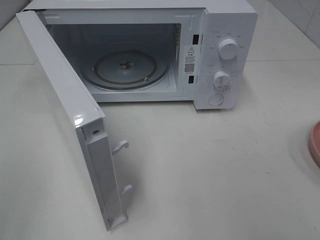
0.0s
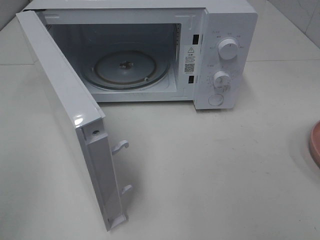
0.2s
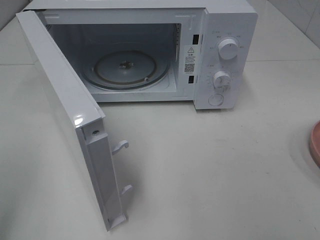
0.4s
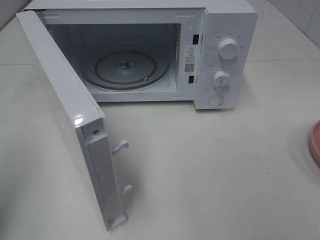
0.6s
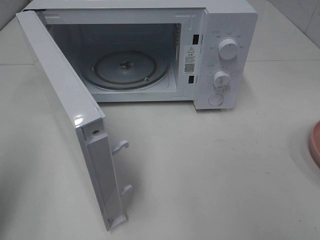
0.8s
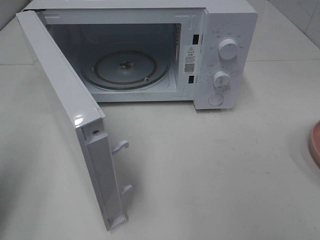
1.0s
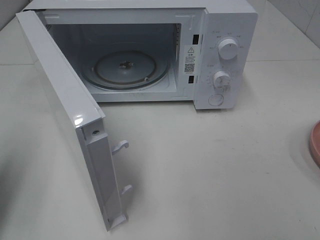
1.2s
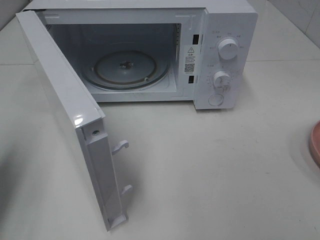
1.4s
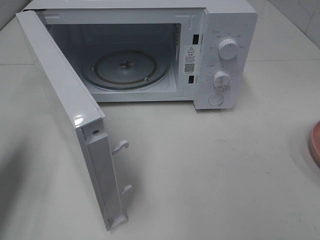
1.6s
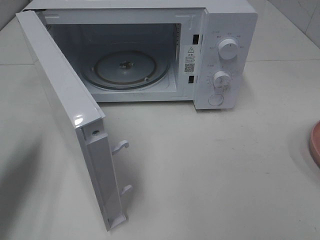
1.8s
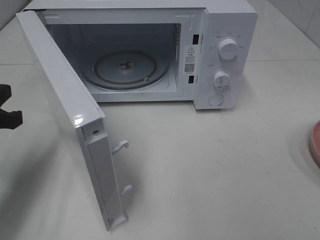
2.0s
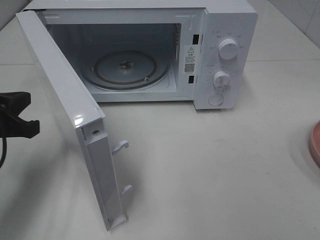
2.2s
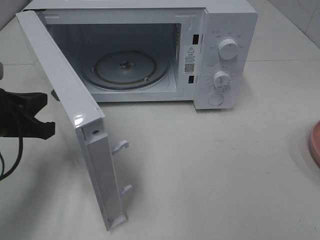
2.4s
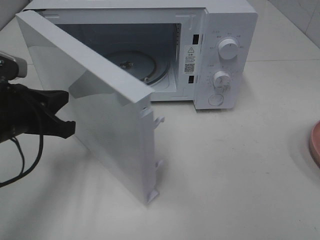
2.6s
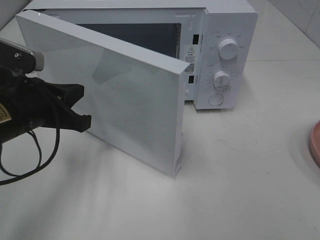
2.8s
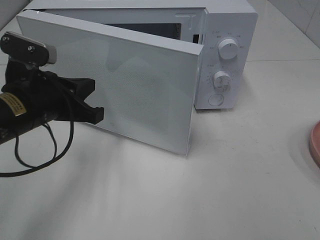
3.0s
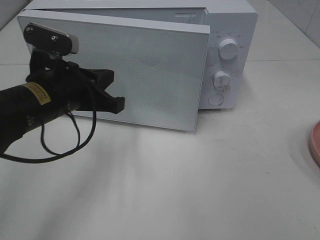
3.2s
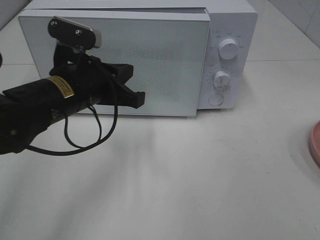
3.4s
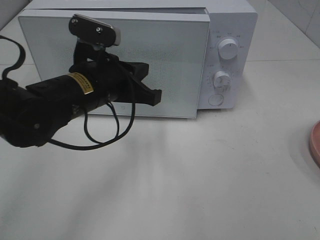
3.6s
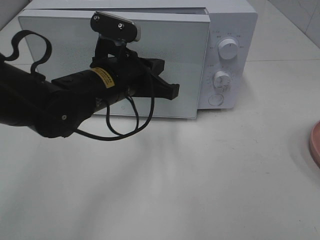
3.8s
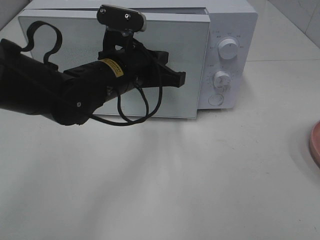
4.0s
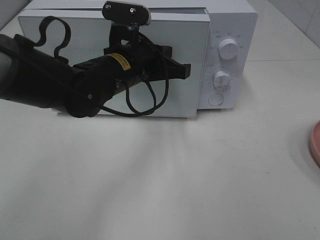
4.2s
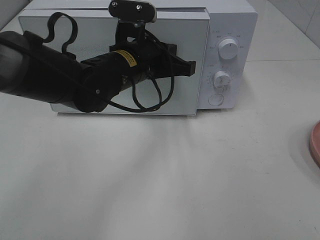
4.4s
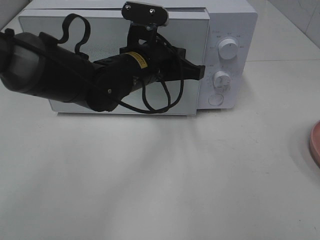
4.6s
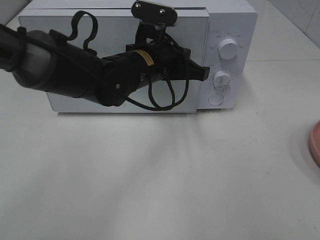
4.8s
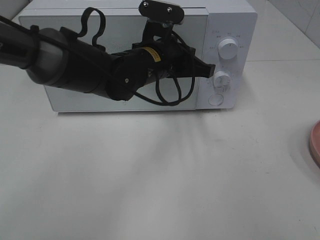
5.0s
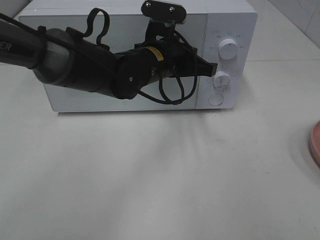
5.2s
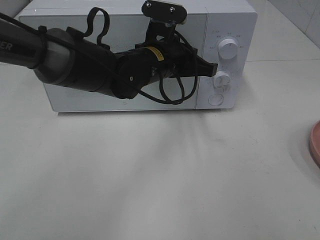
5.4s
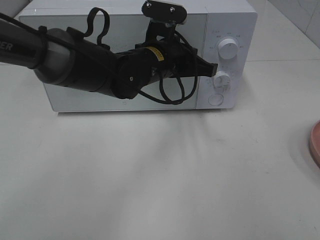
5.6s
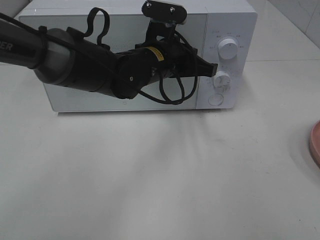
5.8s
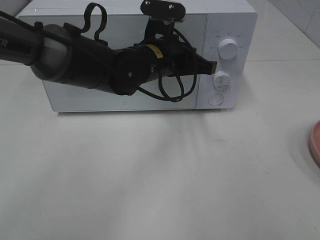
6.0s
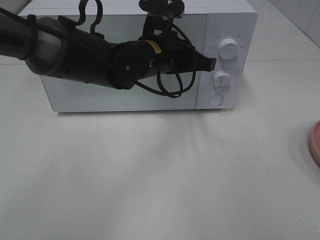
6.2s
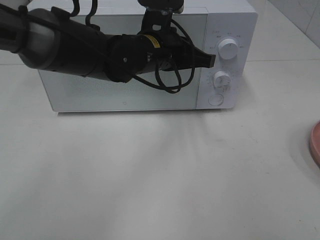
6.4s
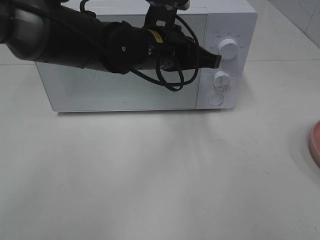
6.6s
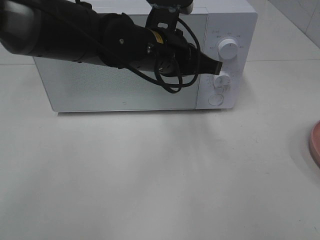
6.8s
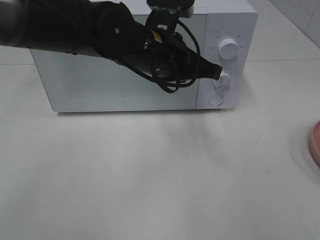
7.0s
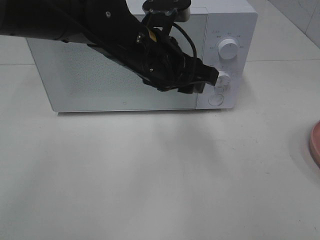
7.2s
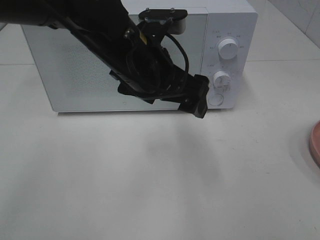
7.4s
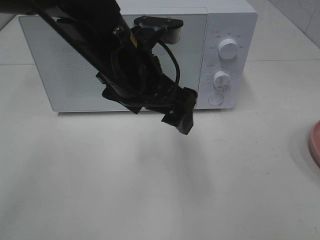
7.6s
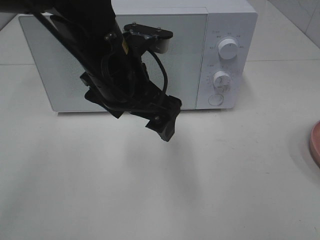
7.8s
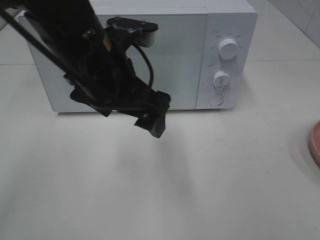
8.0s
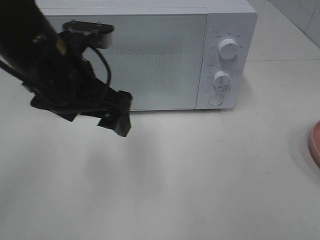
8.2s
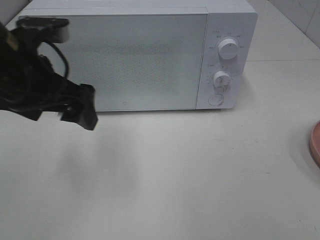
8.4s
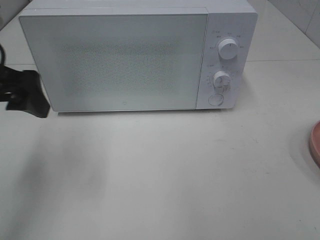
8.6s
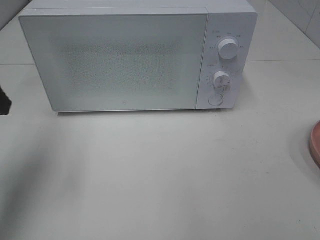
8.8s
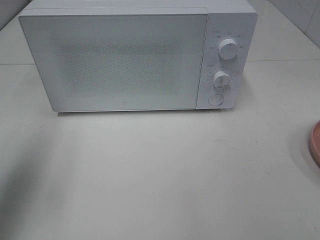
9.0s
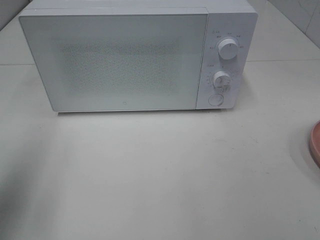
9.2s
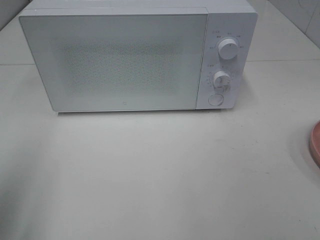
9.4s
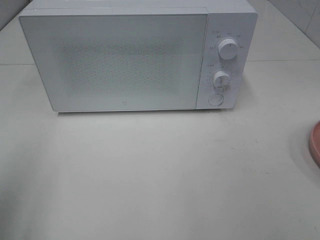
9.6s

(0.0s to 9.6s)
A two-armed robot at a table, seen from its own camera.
Task of the whole recording: Heat Sandwich.
Step, 0.0s - 6.4s: Left hand: close the microwave door.
0.0s - 1.6s: The left gripper moves forward, about 20 cm, and closes.
1.6s - 3.2s: The left gripper moves to the right, approximately 15 cm.
3.2s - 4.8s: The left gripper travels to the right and forward by approximately 15 cm.
4.8s - 6.4s: The grippers stay close to where they were, moving slightly.
6.4s - 8.0s: The left gripper travels backward and to the left by about 10 cm, and opens its fingers.
8.0s - 9.6s: The left gripper shifts roughly 30 cm to the left and backward.

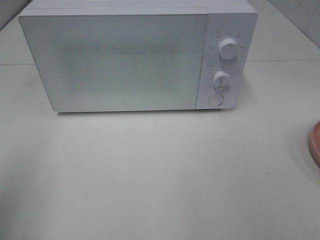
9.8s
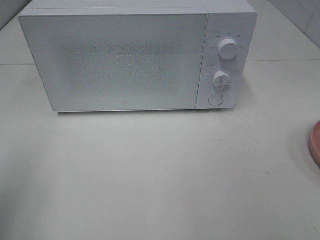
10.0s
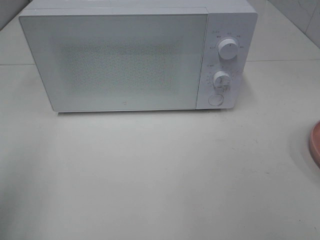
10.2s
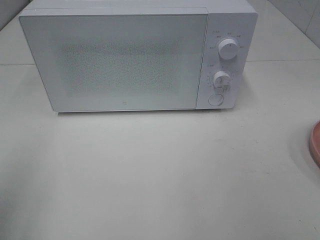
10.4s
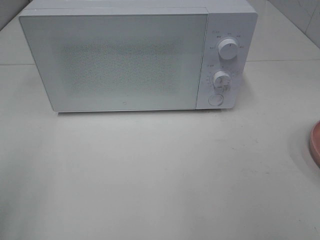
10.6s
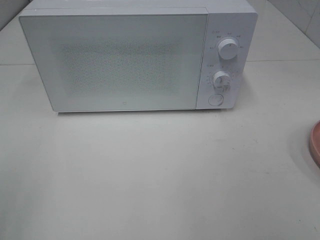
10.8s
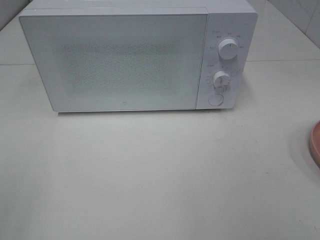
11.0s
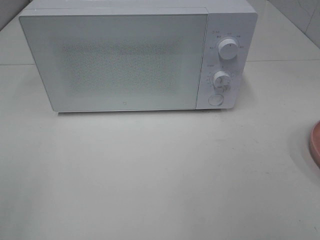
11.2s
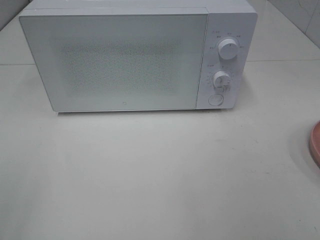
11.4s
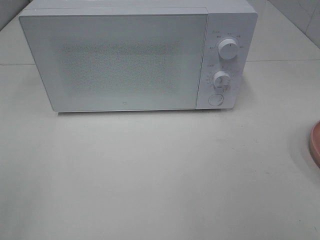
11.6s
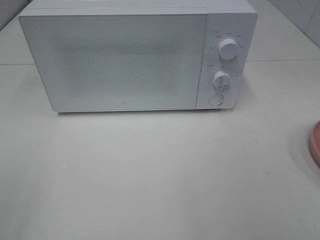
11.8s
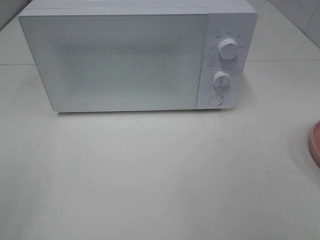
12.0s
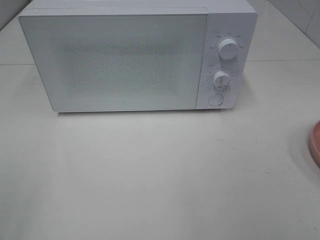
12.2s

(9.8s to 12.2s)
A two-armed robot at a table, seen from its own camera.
Task of the whole recording: Heat Sandwich.
11.0s - 12.2s: Both grippers stay about where they are.

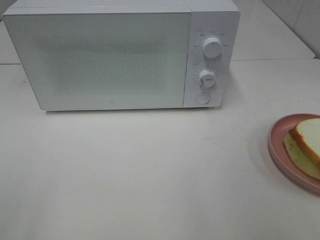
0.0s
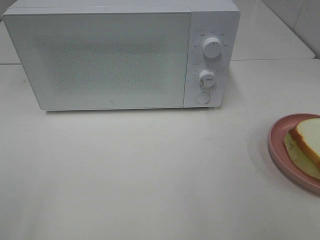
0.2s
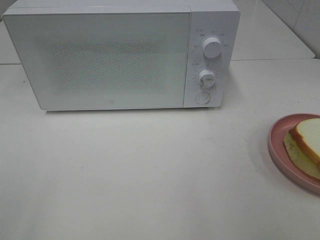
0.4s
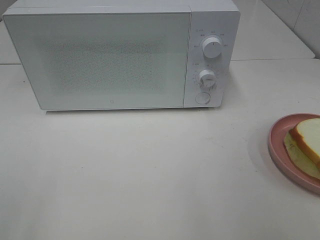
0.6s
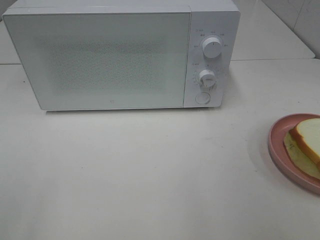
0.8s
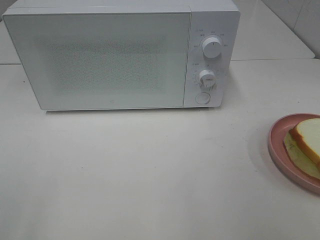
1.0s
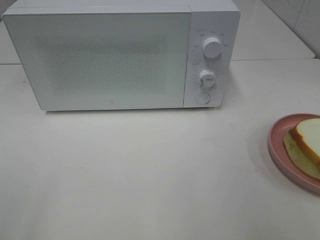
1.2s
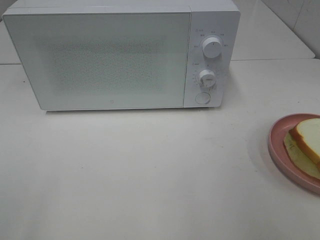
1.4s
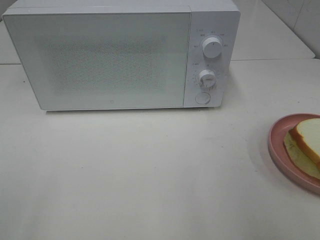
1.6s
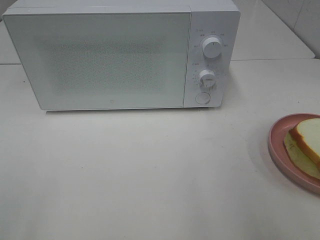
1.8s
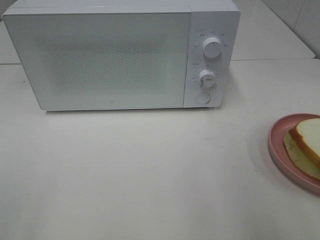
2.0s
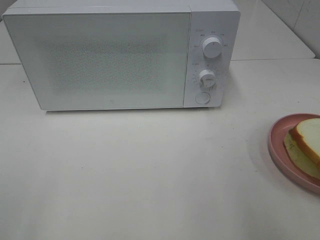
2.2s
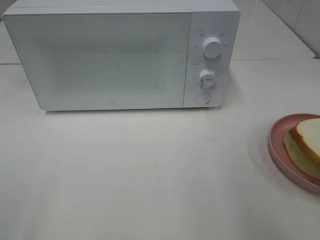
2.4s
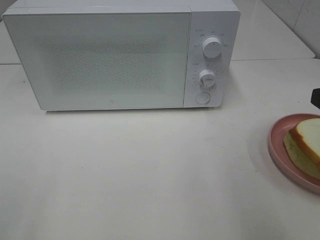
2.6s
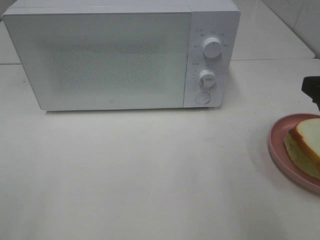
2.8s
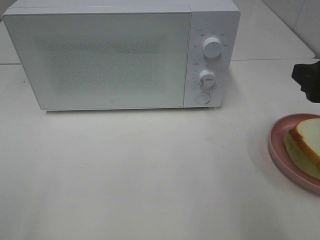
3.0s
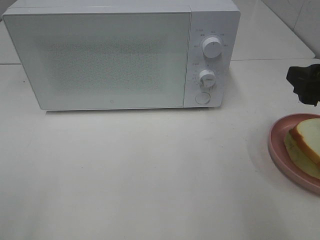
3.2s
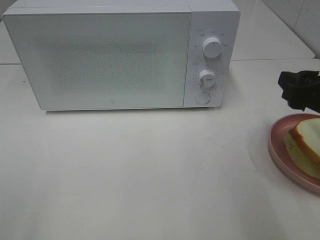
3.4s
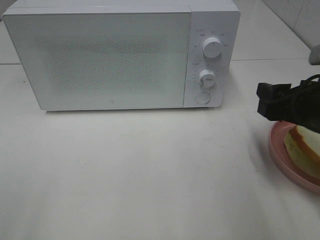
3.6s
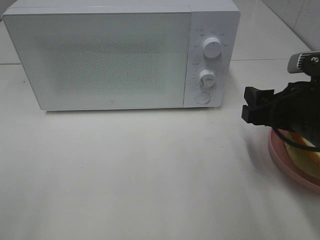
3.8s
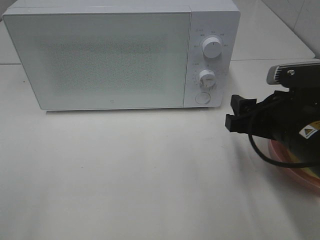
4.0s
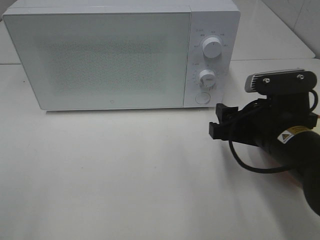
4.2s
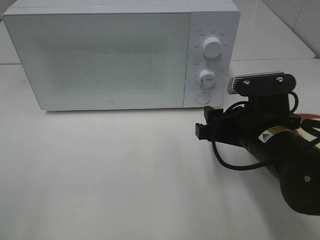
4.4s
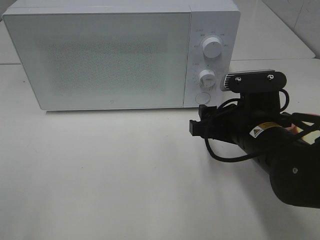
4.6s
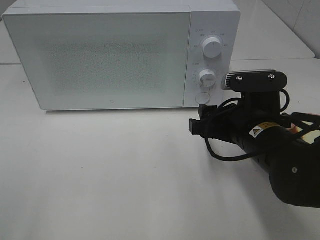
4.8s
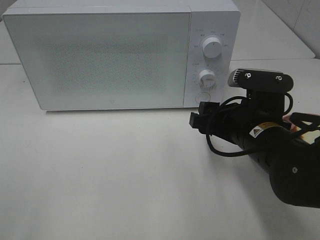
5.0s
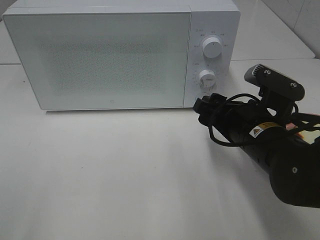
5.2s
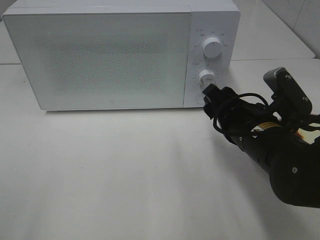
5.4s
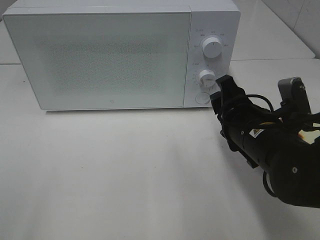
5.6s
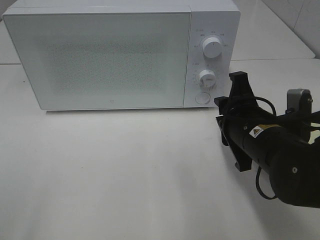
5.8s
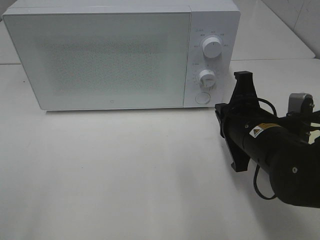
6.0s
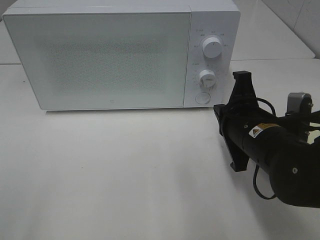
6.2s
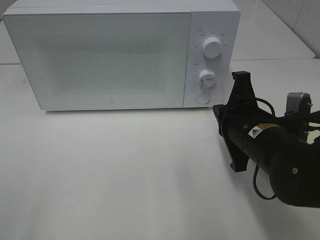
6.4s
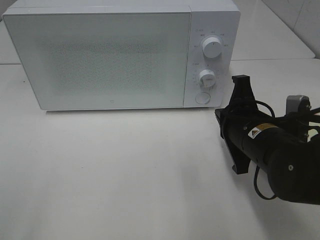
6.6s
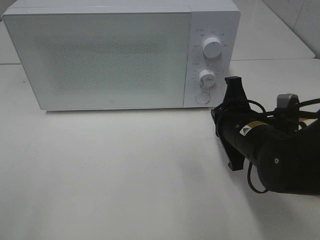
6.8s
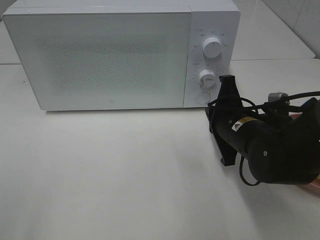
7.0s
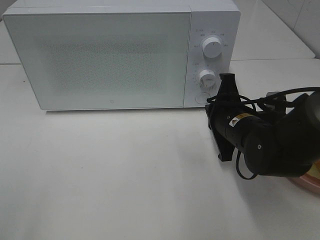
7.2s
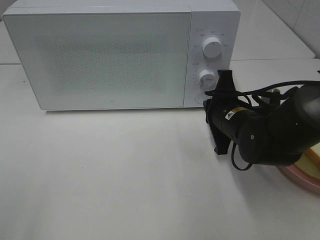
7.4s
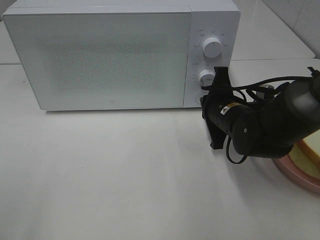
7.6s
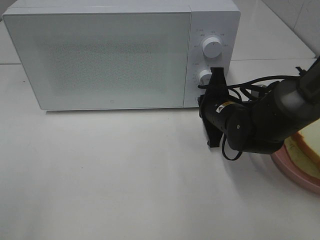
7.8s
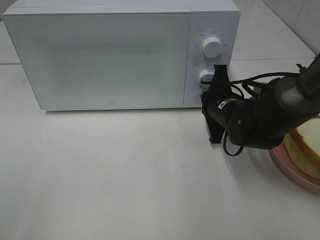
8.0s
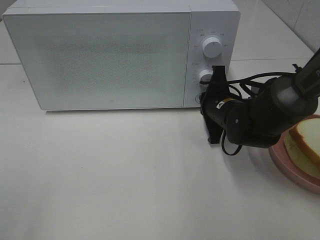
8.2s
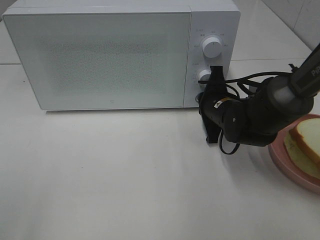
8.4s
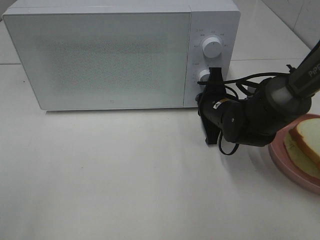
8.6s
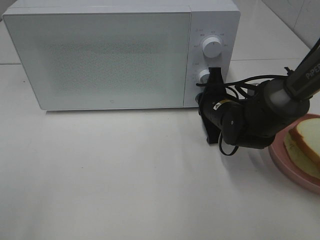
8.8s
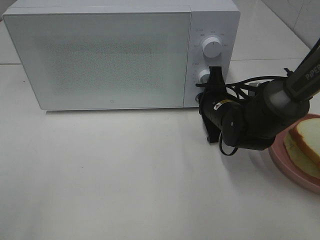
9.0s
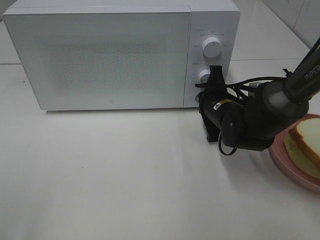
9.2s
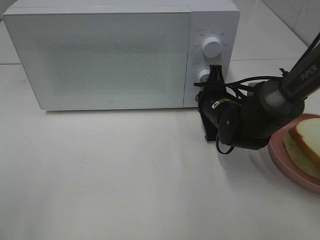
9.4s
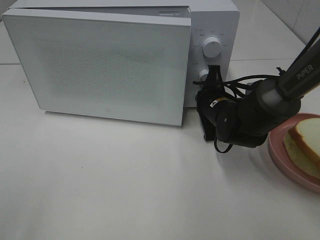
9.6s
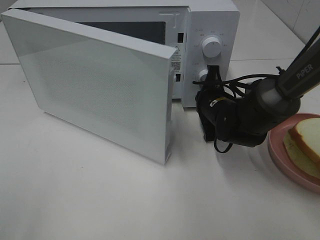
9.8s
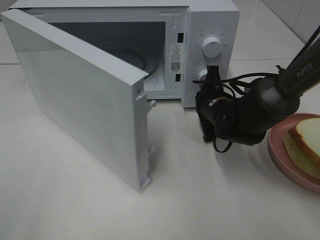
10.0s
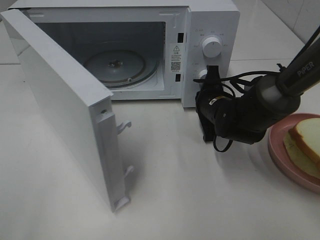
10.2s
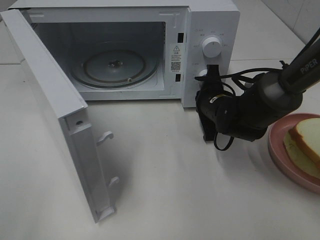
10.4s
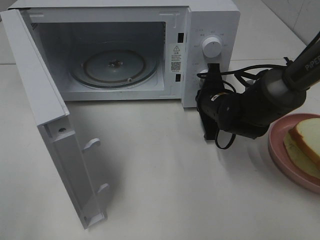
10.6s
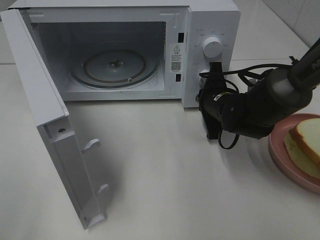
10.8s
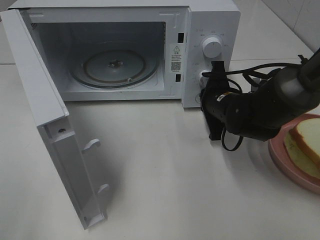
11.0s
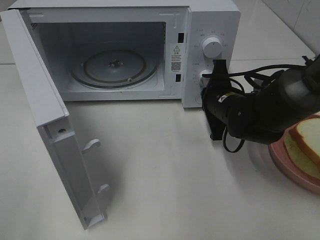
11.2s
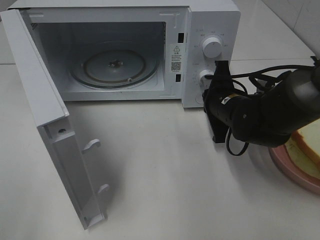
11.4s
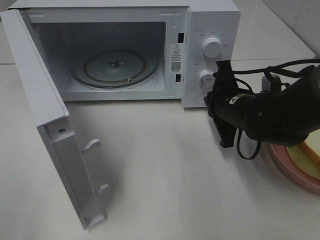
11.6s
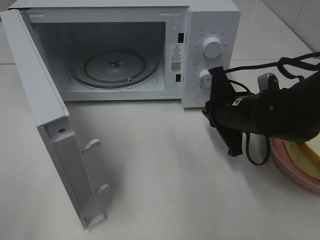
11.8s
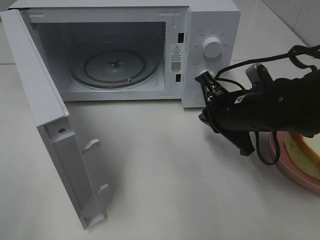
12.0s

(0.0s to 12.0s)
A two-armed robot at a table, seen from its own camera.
Task of the whole recording: Heat Sandwich.
Step, 0.0s - 11.4s: Right hand: press the switch.
1.6s - 3.0s: The right gripper moves forward, about 10 cm.
3.0s - 4.4s: The right gripper shifts roughly 15 cm to the left and downward.
4.4s - 6.0s: The right gripper closes up.
6.0s - 7.6s: The right gripper is displaced forward by about 10 cm.
7.6s - 9.0s: The grippers move only a little.
10.4s - 12.0s: The right gripper heads backward and upward, covering approximately 10 cm.
